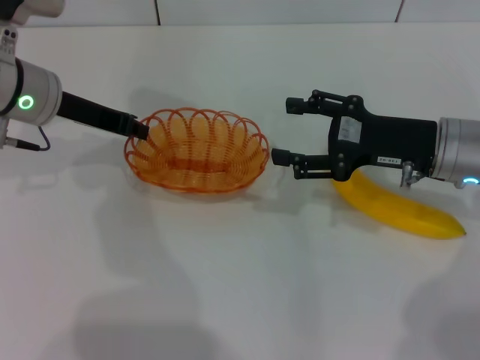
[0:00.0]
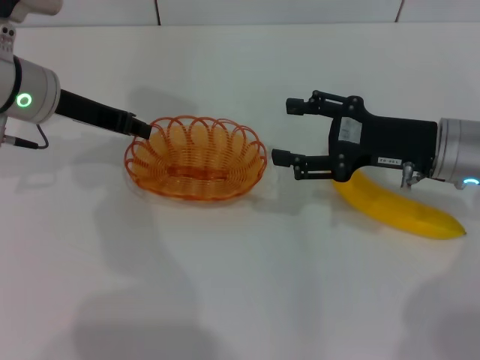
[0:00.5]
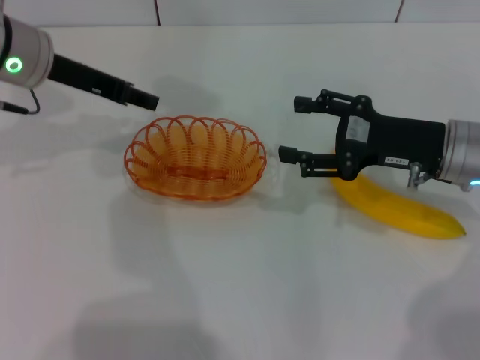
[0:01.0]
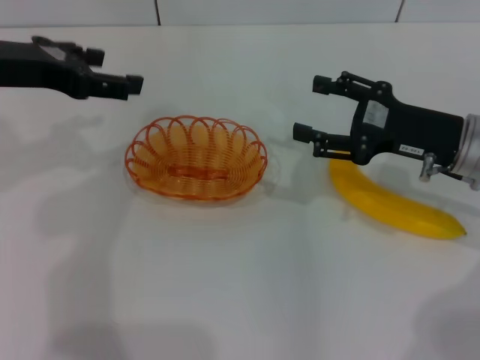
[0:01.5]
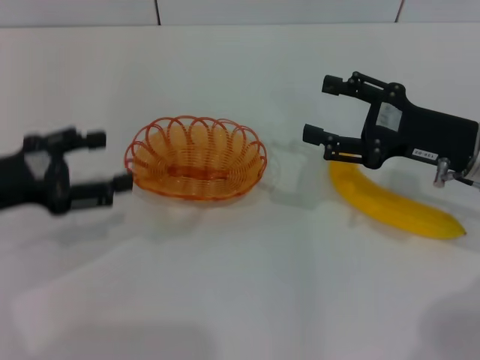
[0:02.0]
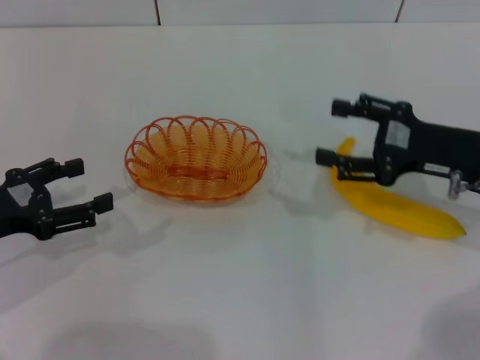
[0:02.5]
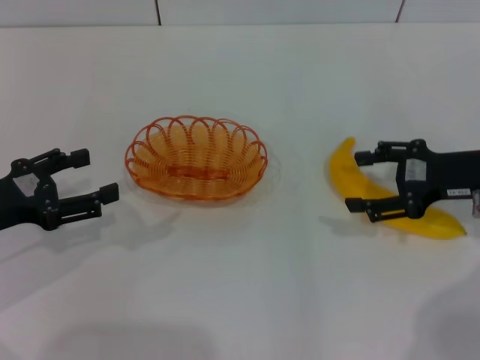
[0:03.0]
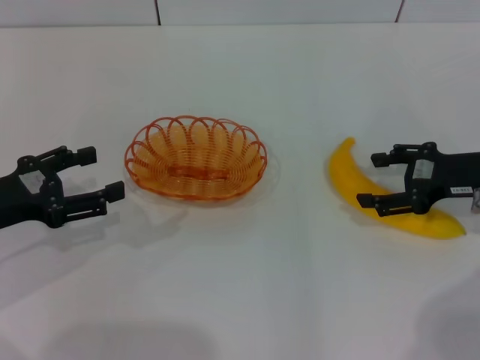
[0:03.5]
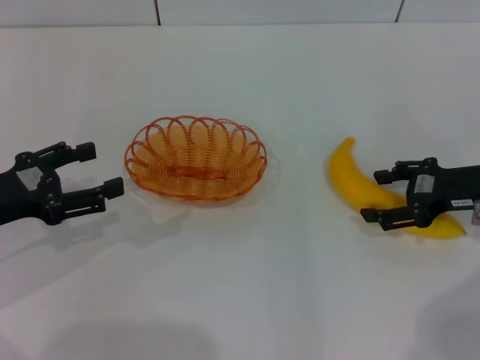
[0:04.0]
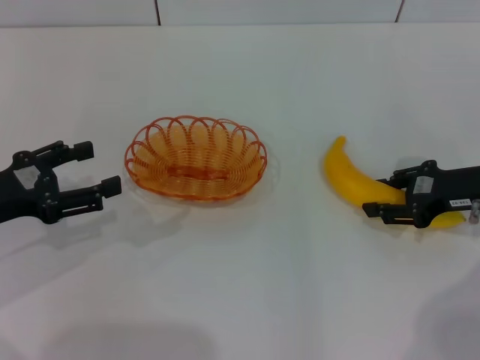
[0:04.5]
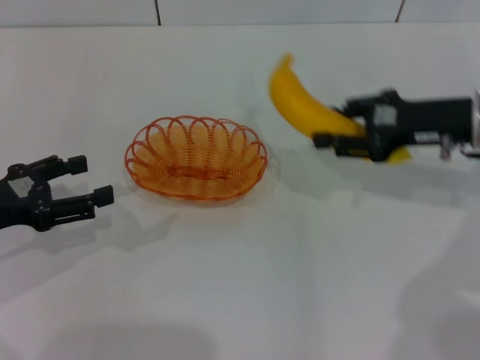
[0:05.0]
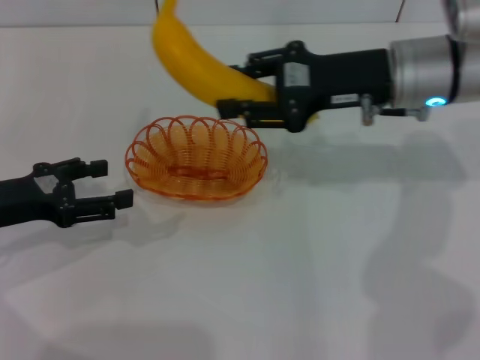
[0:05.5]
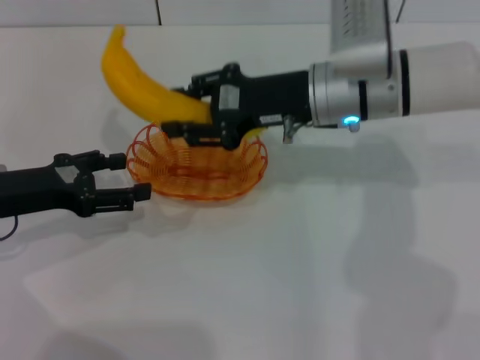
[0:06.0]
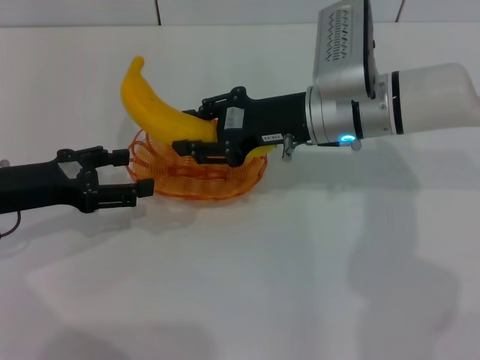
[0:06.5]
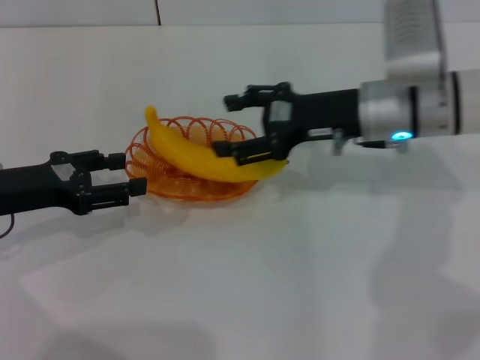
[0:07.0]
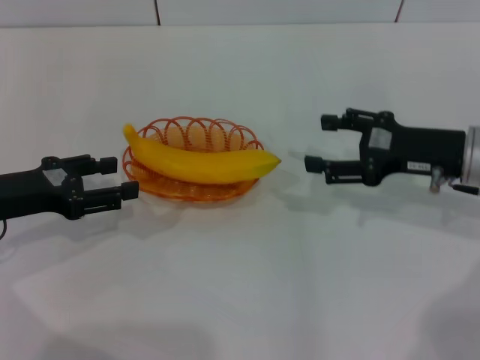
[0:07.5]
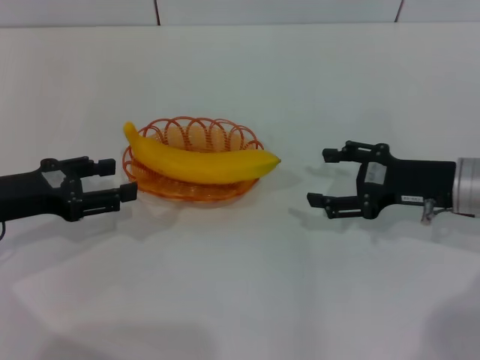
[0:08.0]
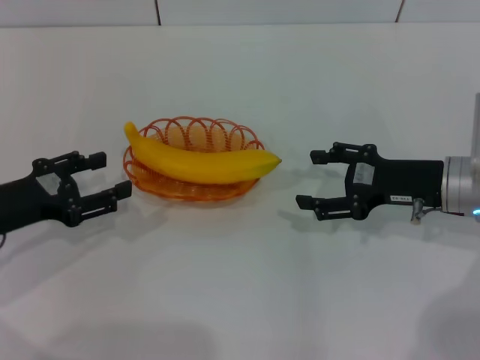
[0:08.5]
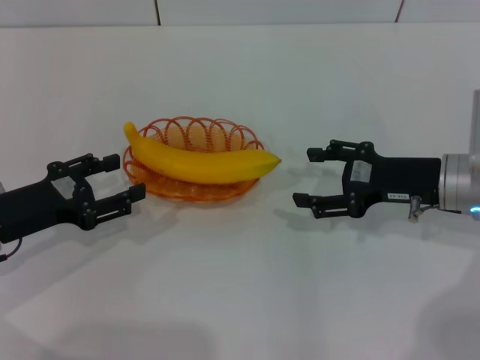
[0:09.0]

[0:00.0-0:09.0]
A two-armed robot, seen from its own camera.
Step, 0:01.5 to 0:04.5: Pick up the banana with the right gripper.
Step, 0:05.0 to 0:07.0: Place the banana into the basket with the right gripper.
0:00.0 to 0:02.0: The left gripper moves backward and to the left, some 15 cm, and opens up.
0:02.0 to 0:04.5: The right gripper changes place by about 5 cm, and closes its fingers.
0:04.5 to 0:07.0: The right gripper heads to the left and forward, covering some 15 cm, and closes, then reopens.
0:07.0 to 0:09.0: The right gripper heads to the right, backward and downward, covering roughly 10 cm.
